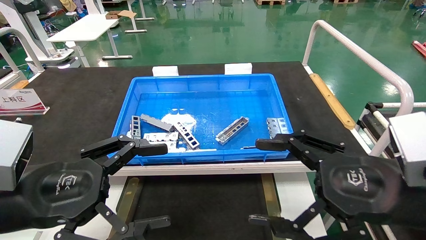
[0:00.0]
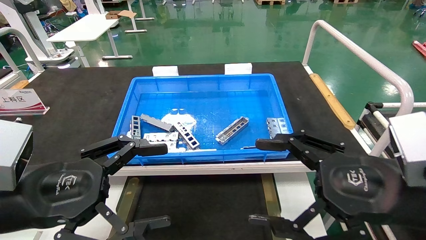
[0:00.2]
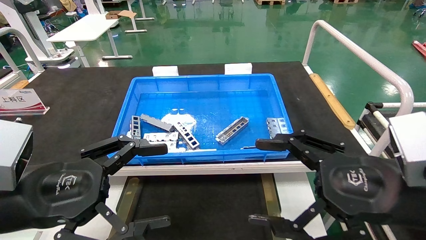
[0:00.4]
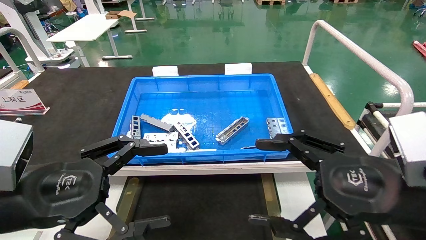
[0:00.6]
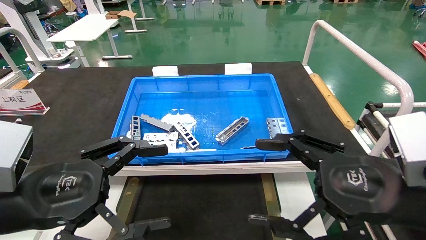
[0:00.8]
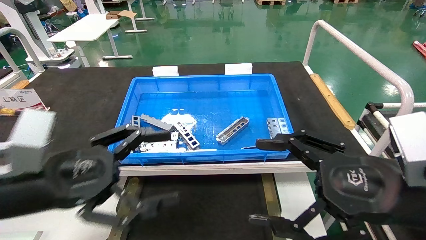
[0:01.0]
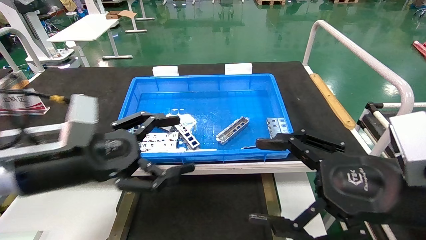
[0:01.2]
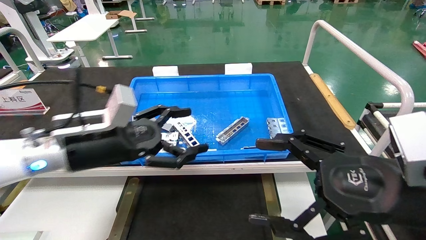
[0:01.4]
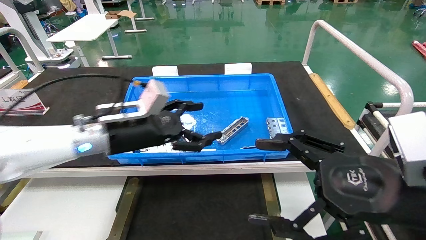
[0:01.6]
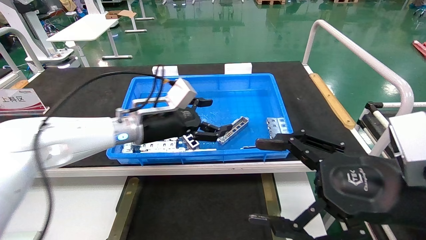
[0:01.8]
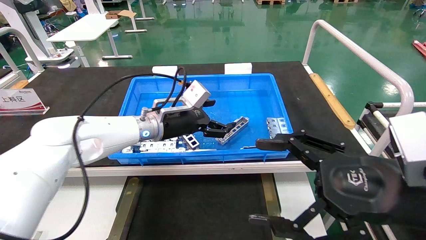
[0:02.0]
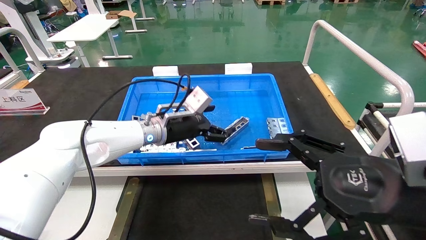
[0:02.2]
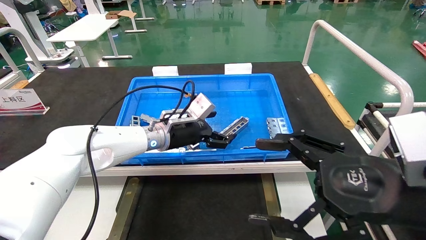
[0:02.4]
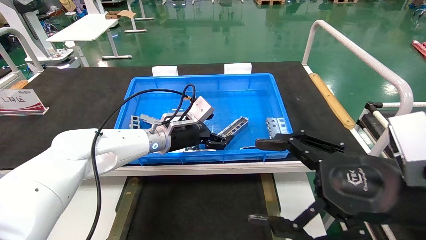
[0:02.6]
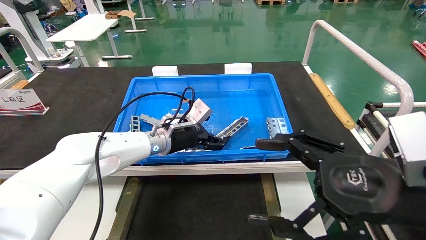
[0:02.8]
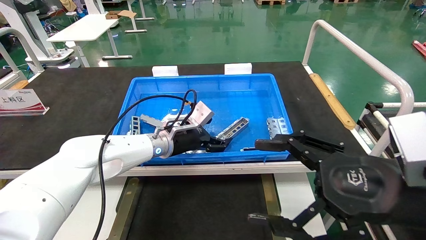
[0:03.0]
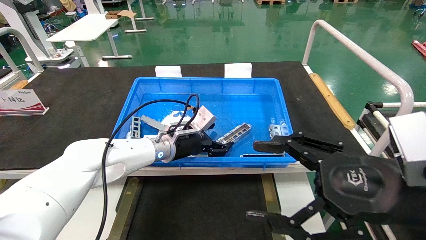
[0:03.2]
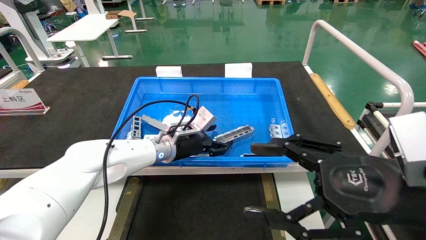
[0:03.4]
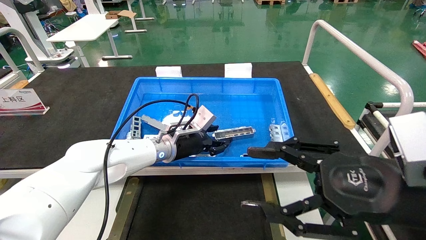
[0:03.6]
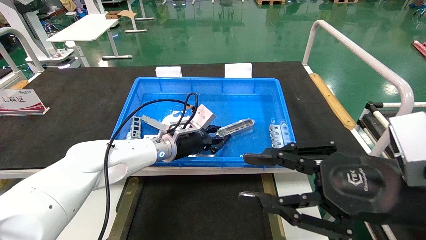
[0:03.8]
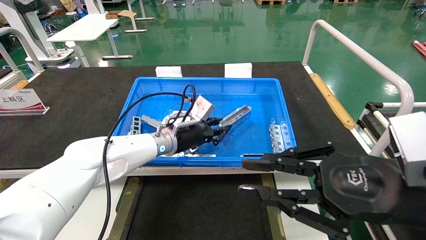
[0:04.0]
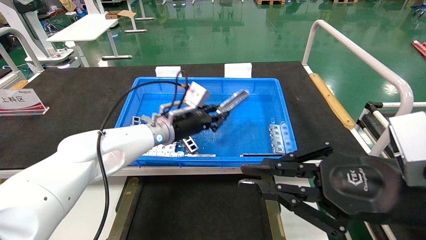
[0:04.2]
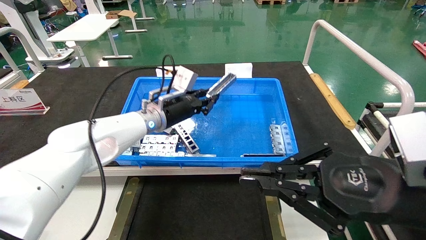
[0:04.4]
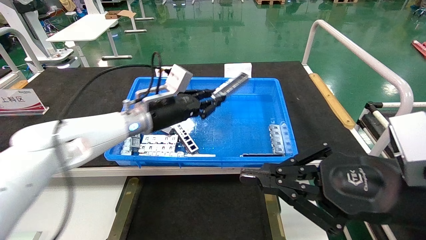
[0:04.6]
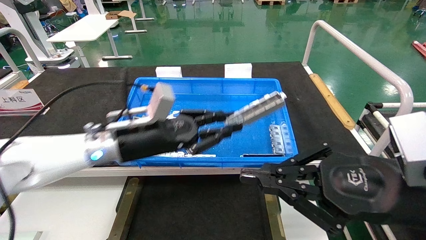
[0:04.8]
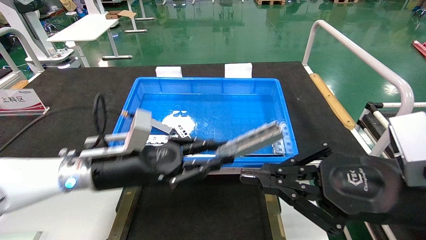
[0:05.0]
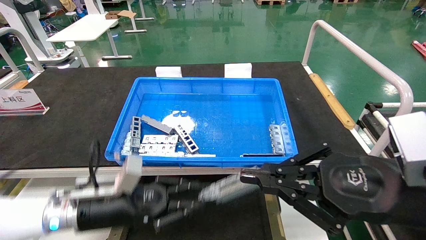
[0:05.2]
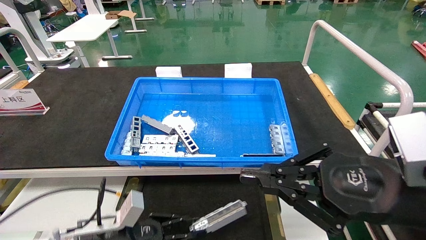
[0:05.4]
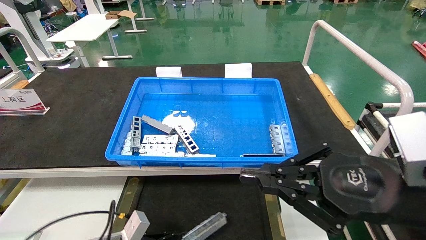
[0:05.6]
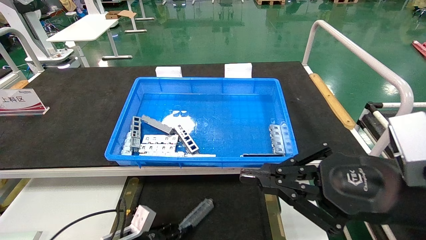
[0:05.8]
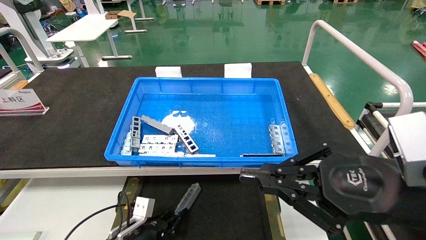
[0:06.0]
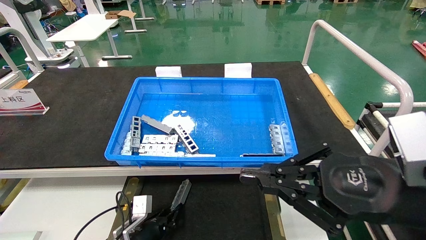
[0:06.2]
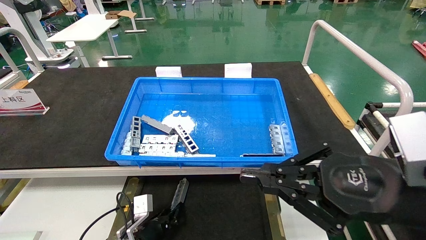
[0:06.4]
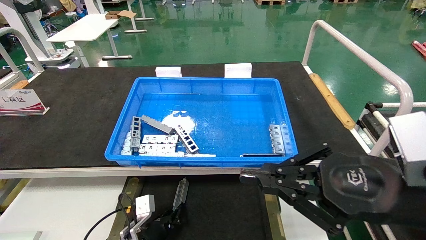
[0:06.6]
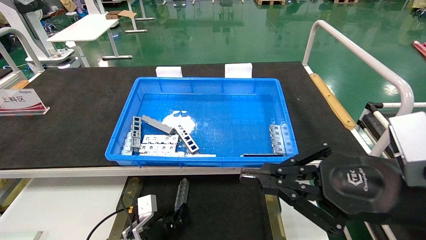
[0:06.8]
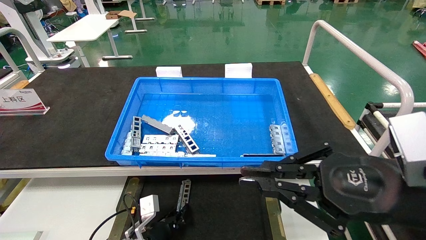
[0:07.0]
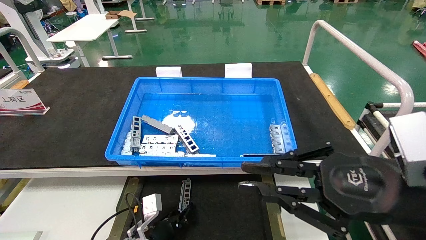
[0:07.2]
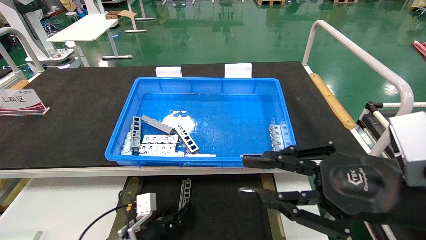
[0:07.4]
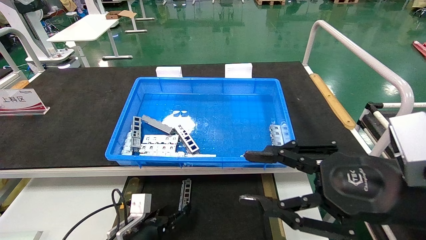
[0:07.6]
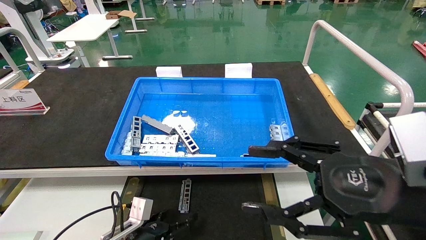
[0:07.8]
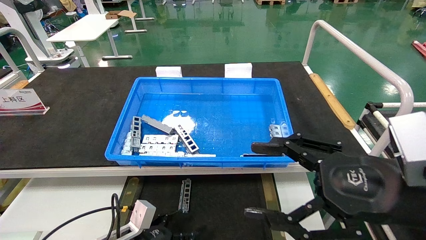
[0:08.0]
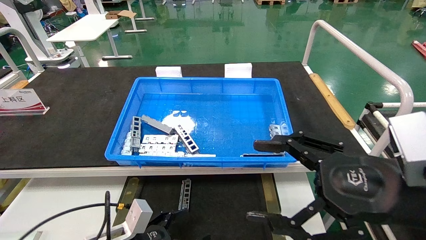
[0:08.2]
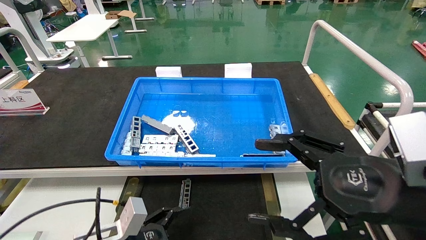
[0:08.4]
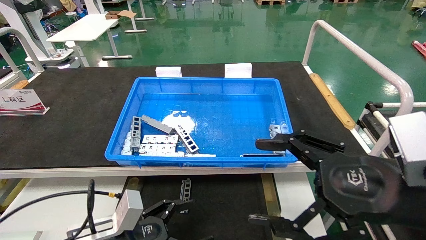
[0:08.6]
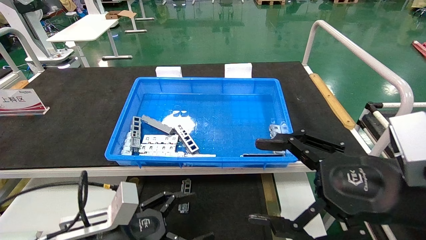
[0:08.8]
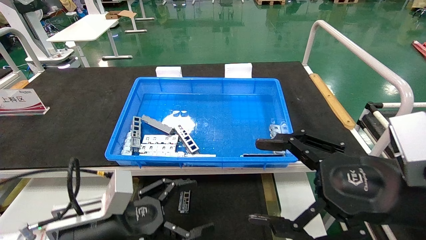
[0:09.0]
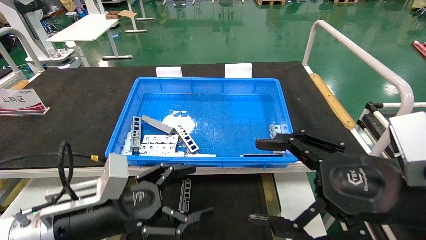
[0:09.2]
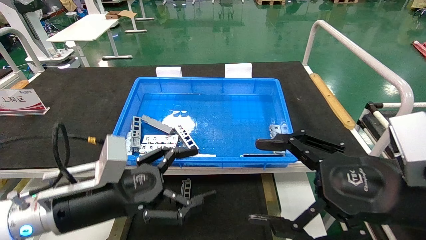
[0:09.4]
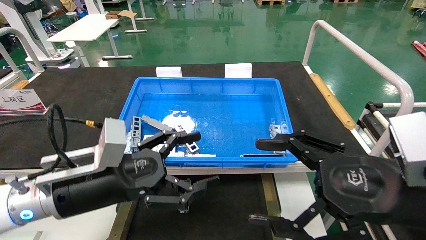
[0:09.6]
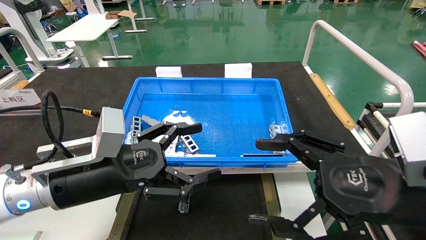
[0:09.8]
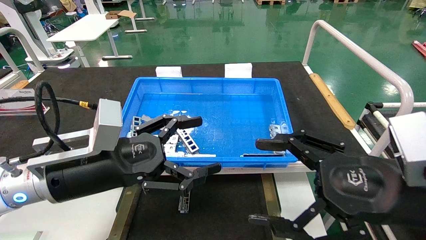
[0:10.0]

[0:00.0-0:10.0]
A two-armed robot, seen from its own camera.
Task of the whole recording: Grasp the part with one hand and place it on the black container.
Step, 0:01.2 to 0:03.8: Pick up the front USB bracket from the feeding area.
Step, 0:04.0 to 0:07.2: Place the front USB bracket into the box.
0:00.0 to 0:01.4: The left gripper is displaced forward by about 15 cm.
0:01.4 to 0:02.8: The left gripper moves forward, to the right and downward, about 20 cm.
0:02.8 to 0:04.2: The left gripper closes its fingers. Meanwhile the right gripper closes.
0:04.2 to 0:05.8: The left gripper heads downward, backward and to the left, covering roughly 30 cm.
0:05.8 to 0:07.2: The left gripper goes about 5 cm to the right.
0:07.2 to 0:08.6: The left gripper travels upward and backward by roughly 15 cm, and opens up, while the right gripper opens.
0:08.6 to 0:10.0: The left gripper is displaced upward by some 15 cm.

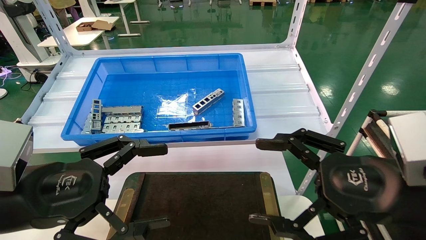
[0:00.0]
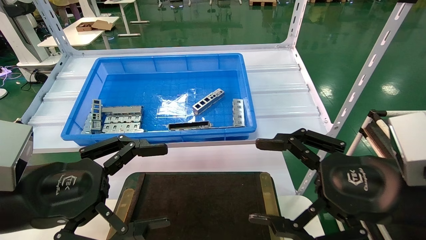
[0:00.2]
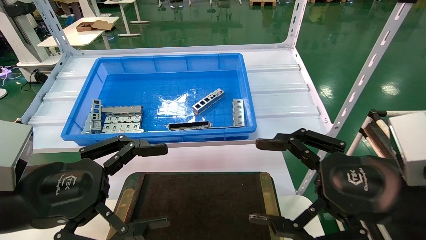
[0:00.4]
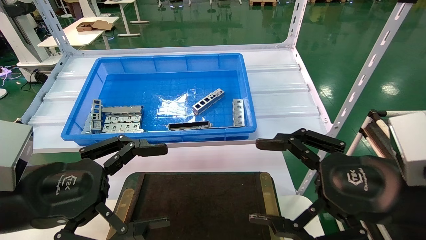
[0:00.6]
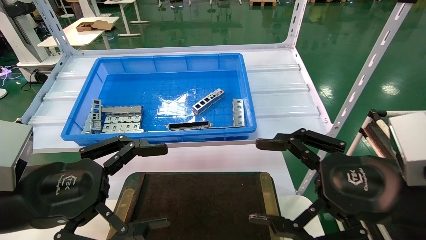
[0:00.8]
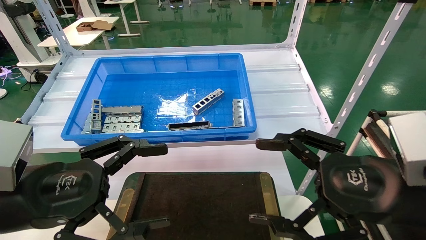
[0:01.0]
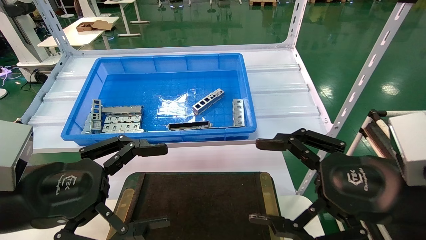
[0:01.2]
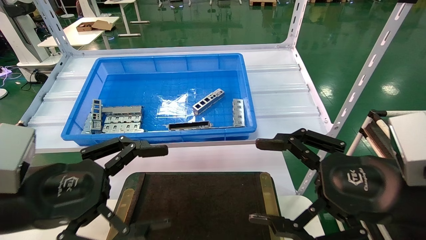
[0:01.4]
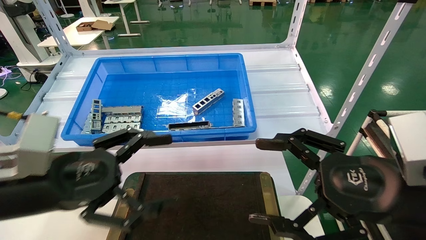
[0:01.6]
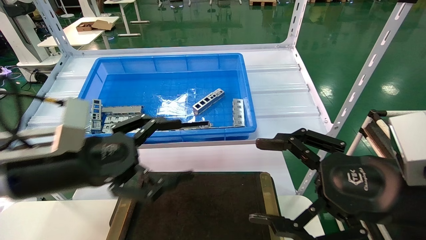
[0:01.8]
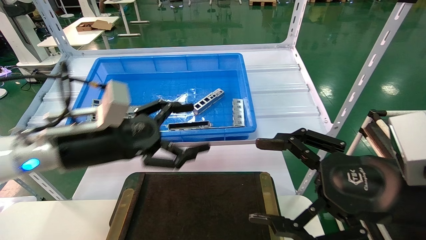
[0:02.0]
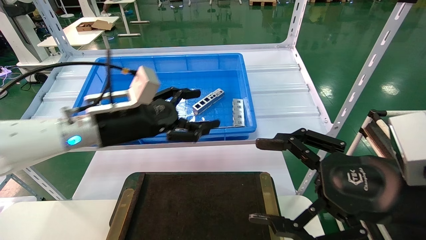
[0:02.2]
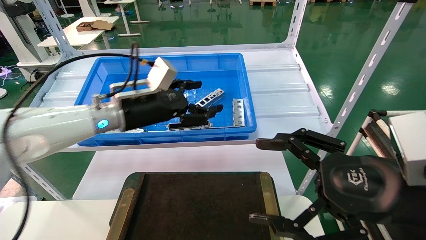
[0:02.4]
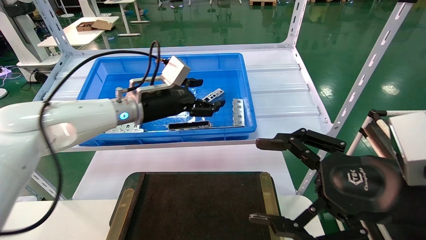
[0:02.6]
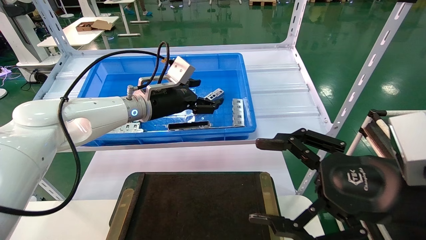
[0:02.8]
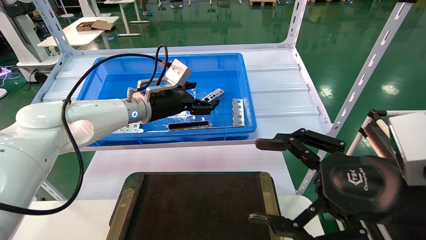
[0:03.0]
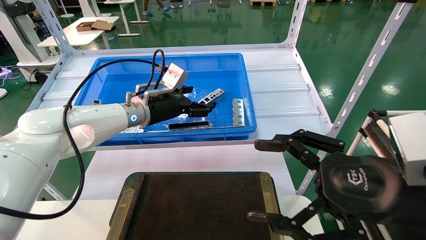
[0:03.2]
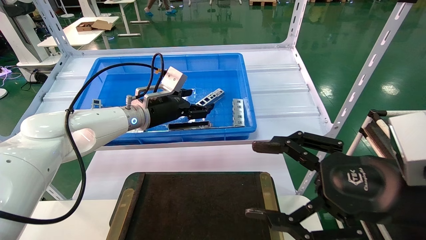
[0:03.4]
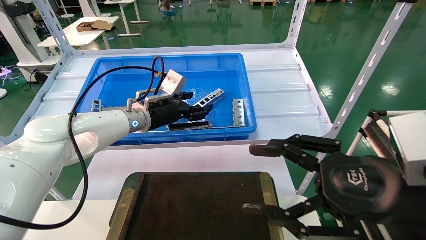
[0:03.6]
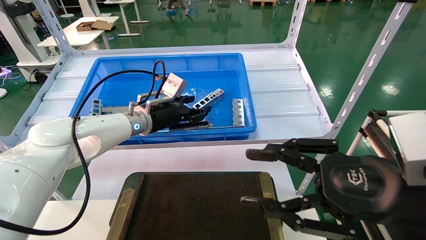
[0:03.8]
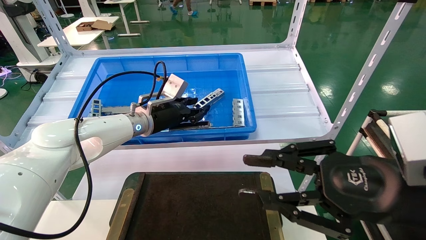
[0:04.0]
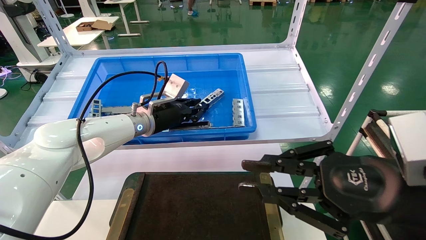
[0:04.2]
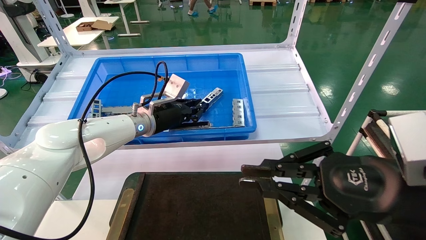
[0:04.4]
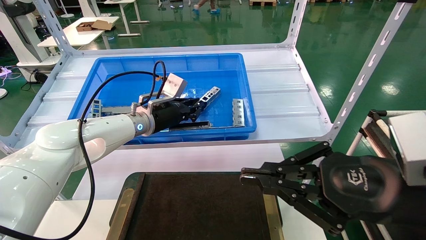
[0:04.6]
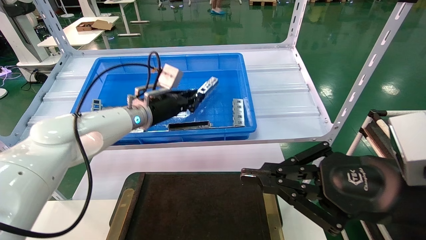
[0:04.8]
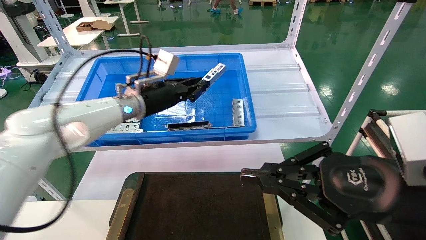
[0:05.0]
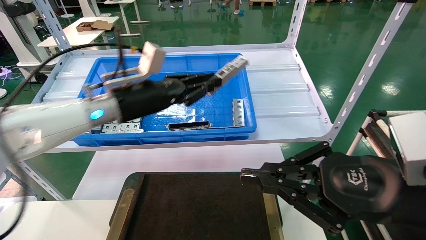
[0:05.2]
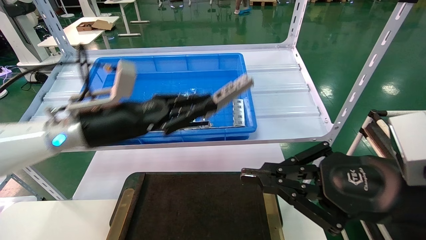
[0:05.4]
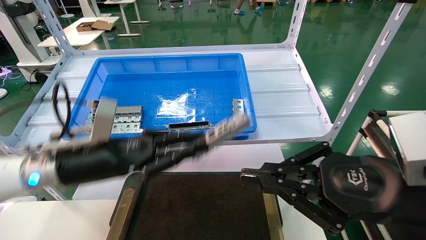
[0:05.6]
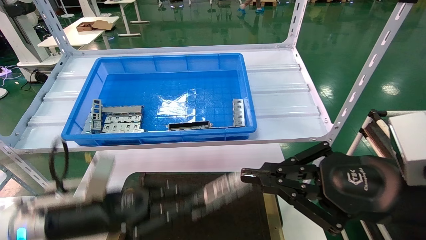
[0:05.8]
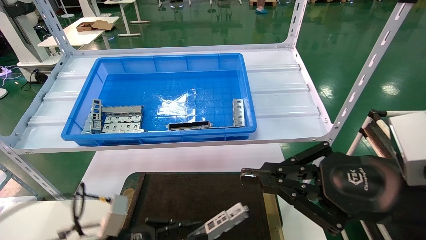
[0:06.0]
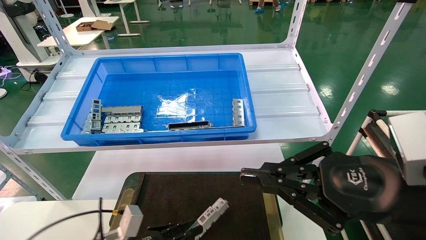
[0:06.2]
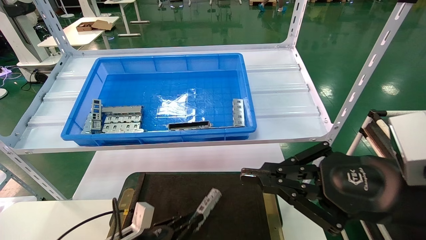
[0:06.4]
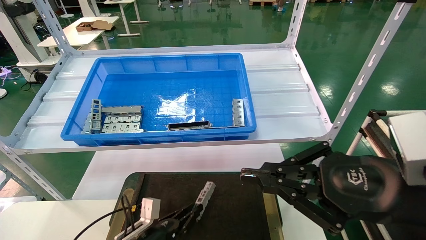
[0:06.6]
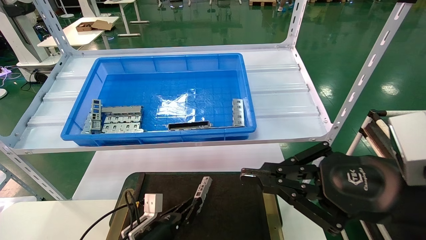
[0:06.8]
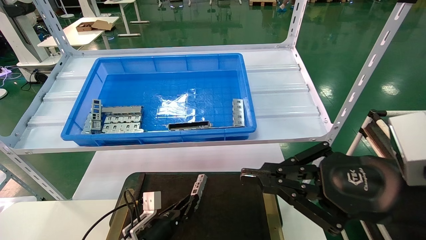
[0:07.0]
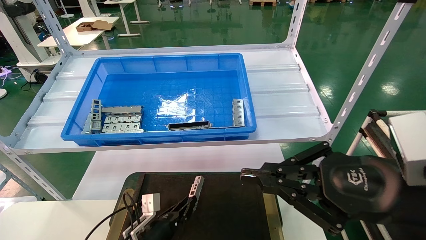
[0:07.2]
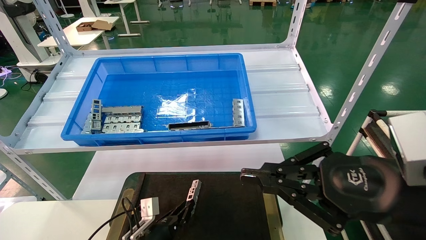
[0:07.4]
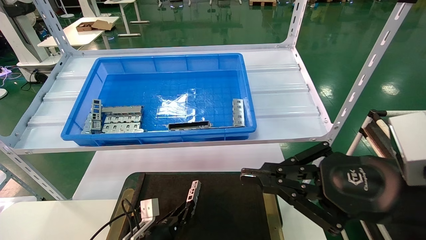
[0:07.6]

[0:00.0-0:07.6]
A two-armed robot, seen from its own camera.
Task of the whole recording: Grasp the part with one hand and place it on the black container.
Step, 0:01.6 to 0:04.2: Pick up the front USB bracket from the feeding area.
0:00.0 to 0:01.6: There are only small adjustments of the grippers.
0:01.6 to 0:03.0: The left gripper is displaced forward by approximately 25 cm.
0:03.0 to 0:04.6: The right gripper closes its fingers, while the left gripper closes up.
0:04.6 to 0:06.0: The left gripper goes roughly 30 cm backward and downward.
0:06.0 to 0:07.6: The left gripper goes some 15 cm downward, forward and to the right.
